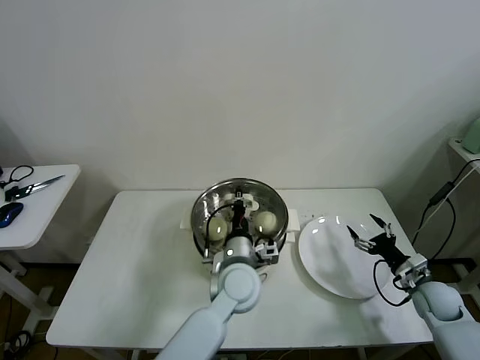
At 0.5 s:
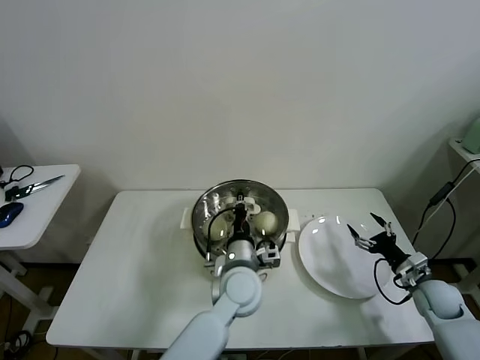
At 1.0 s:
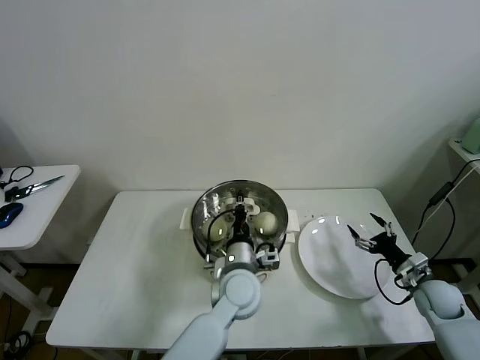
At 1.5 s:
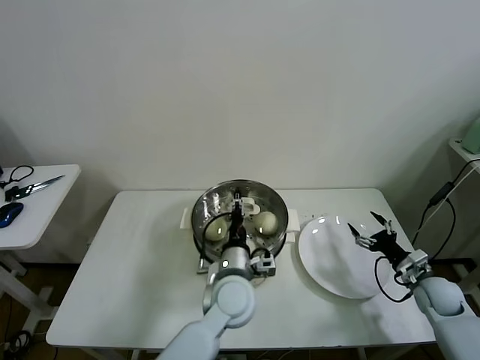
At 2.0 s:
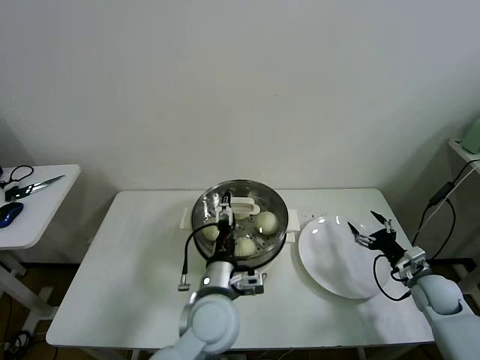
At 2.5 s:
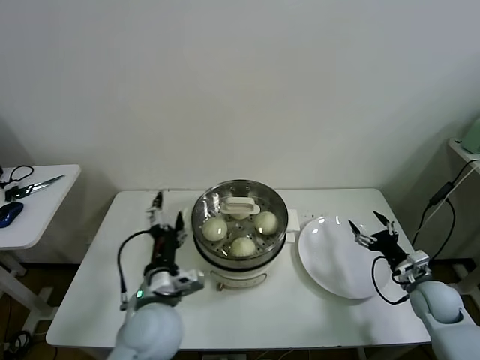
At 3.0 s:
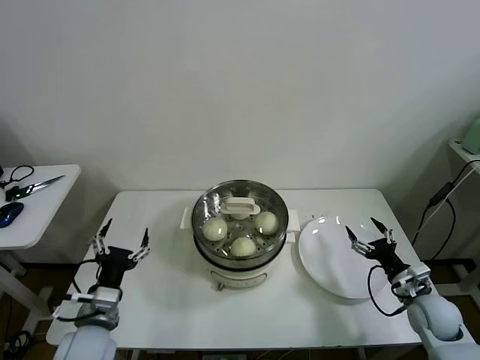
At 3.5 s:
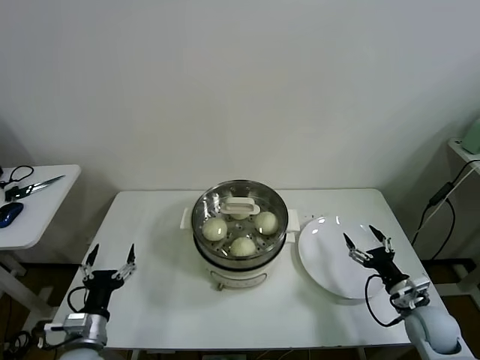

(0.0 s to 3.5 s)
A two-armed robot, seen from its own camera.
Task of the whole recording: take steamed baozi put them in steamer then cover it.
0.0 s - 2.0 s: The left gripper heads backward, covering roughly 5 cm, and opens up.
2.0 s - 3.5 s: The left gripper travels to the left by some 25 cm, while the right gripper is displaced backward by about 5 cm.
